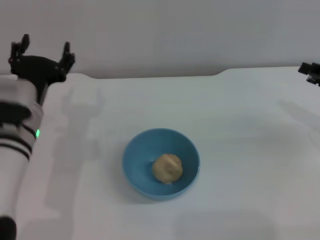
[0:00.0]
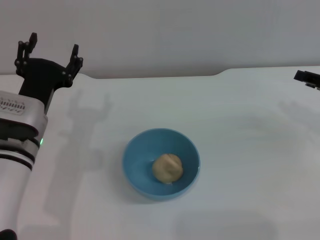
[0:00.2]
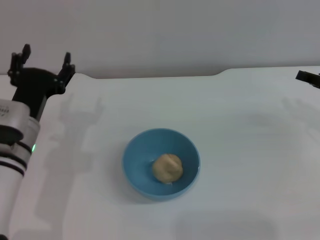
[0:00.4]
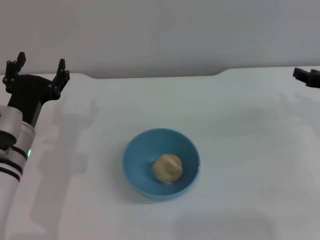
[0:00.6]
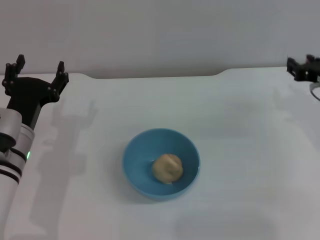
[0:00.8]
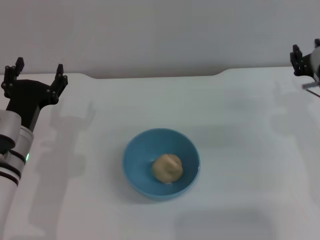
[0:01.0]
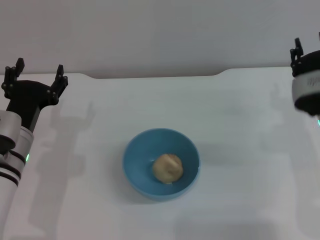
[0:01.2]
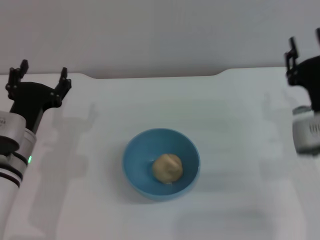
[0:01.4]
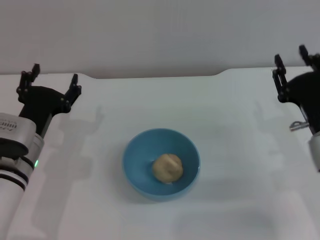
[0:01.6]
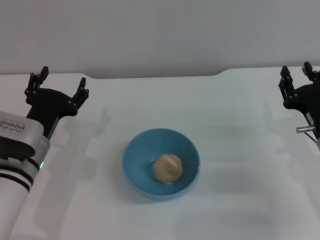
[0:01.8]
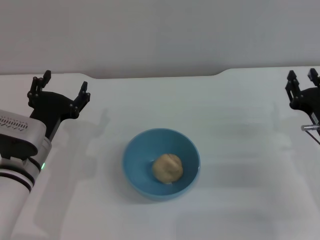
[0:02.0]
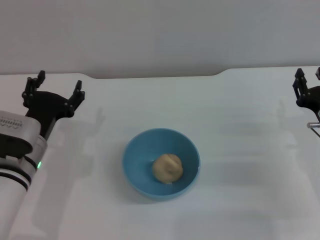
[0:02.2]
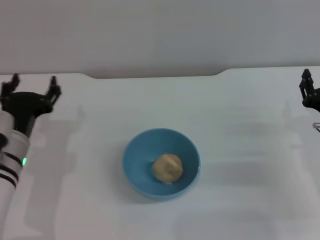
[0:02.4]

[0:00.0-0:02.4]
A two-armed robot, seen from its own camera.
Task of the whole recording: put the egg yolk pastry into the blue bowl and pour it out repeatedly.
0:00.0 to 0:01.2: The right gripper is displaced to the left by approximately 10 cm.
0:01.2 to 0:02.4: The right gripper moves to the right, roughly 5 cm.

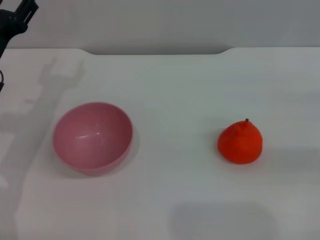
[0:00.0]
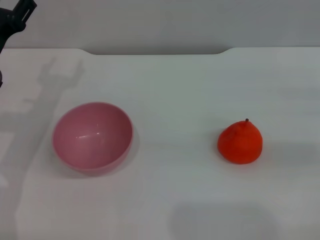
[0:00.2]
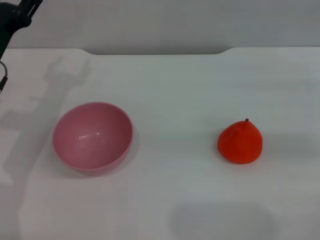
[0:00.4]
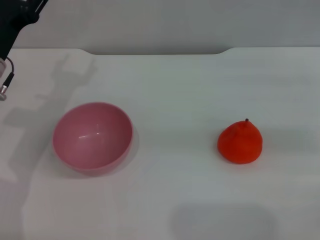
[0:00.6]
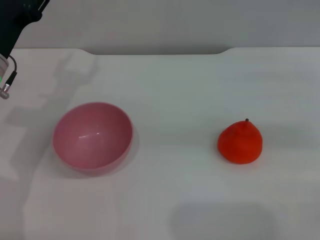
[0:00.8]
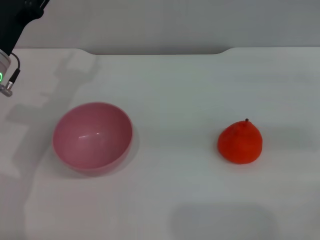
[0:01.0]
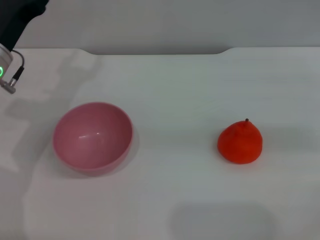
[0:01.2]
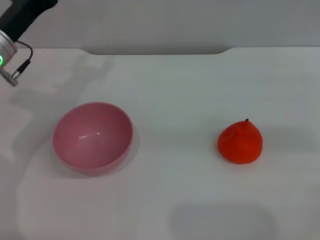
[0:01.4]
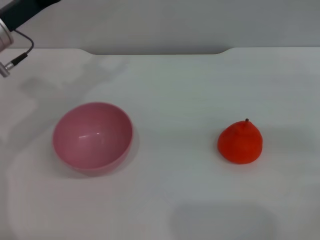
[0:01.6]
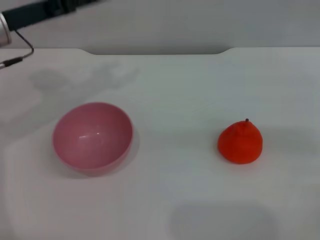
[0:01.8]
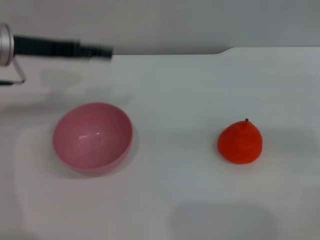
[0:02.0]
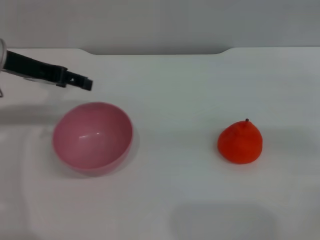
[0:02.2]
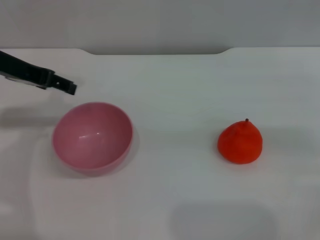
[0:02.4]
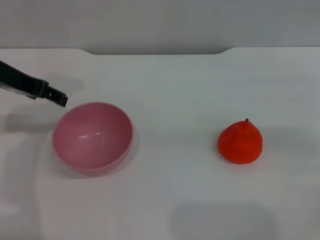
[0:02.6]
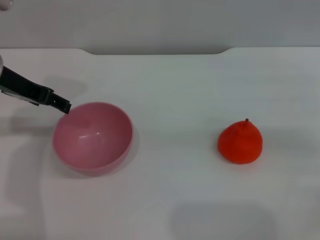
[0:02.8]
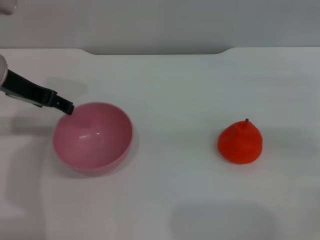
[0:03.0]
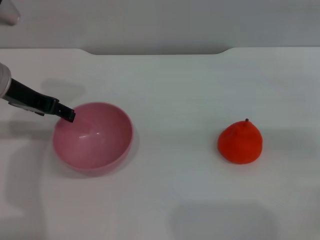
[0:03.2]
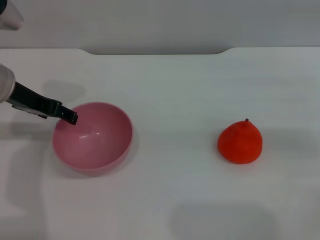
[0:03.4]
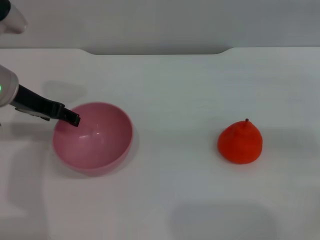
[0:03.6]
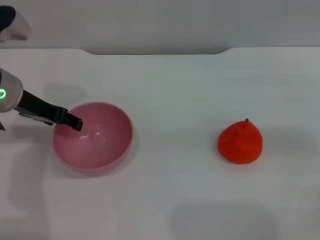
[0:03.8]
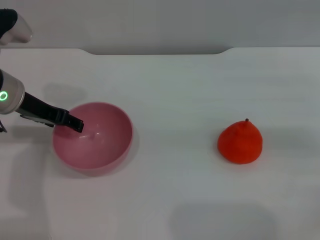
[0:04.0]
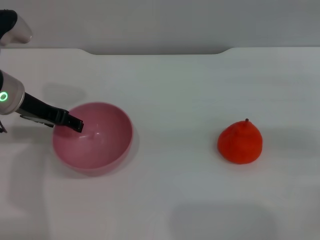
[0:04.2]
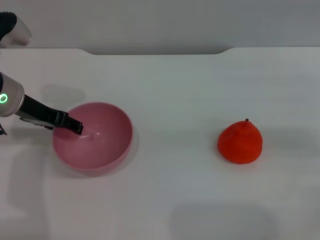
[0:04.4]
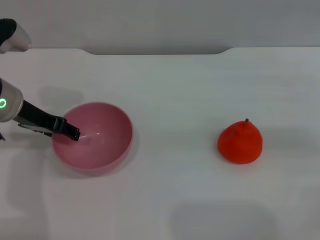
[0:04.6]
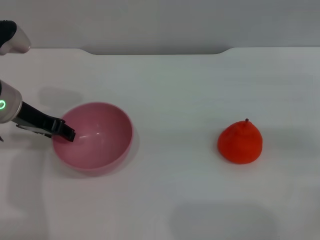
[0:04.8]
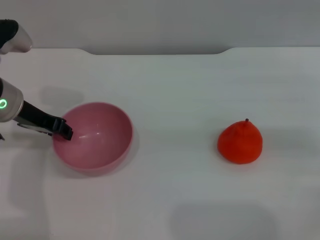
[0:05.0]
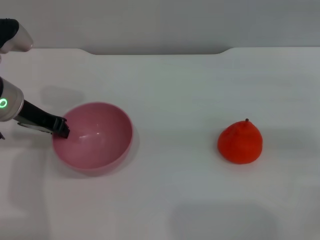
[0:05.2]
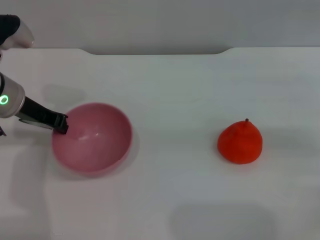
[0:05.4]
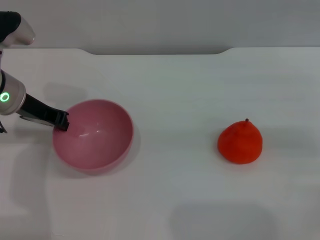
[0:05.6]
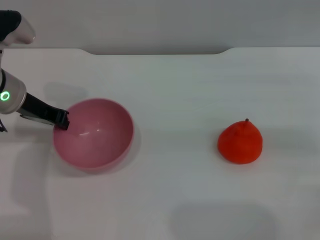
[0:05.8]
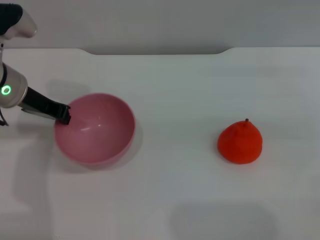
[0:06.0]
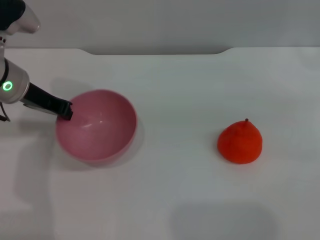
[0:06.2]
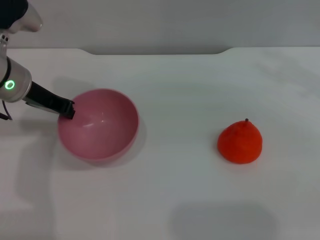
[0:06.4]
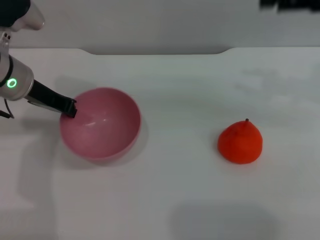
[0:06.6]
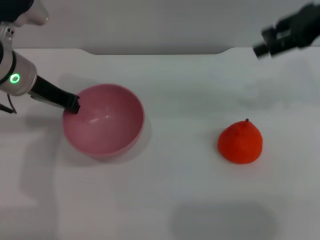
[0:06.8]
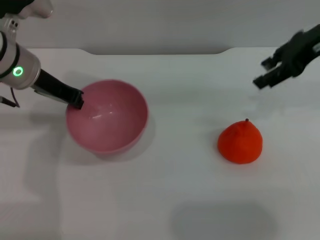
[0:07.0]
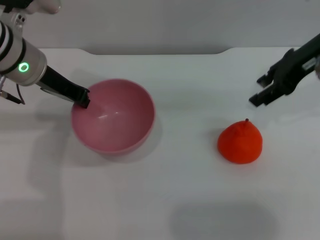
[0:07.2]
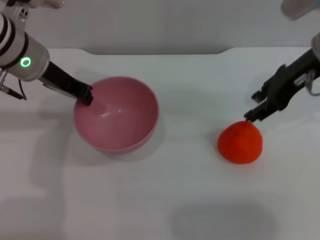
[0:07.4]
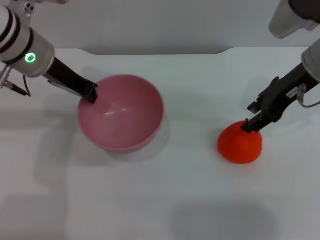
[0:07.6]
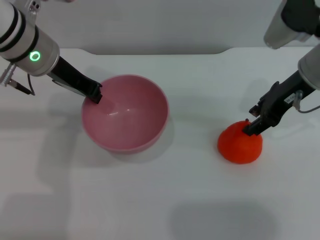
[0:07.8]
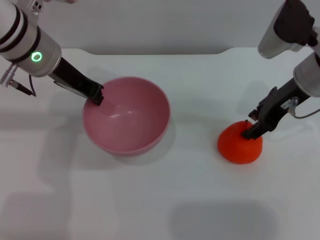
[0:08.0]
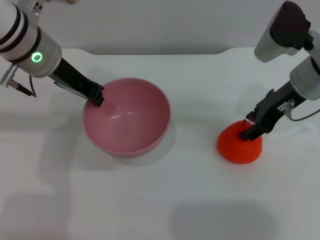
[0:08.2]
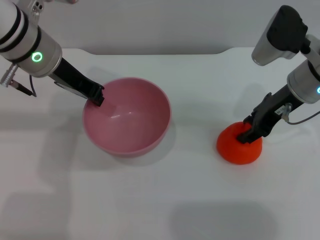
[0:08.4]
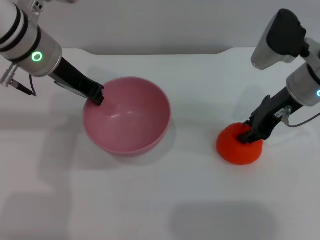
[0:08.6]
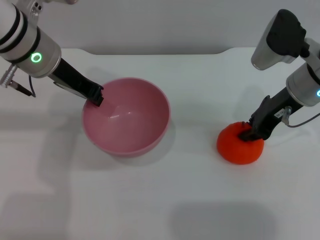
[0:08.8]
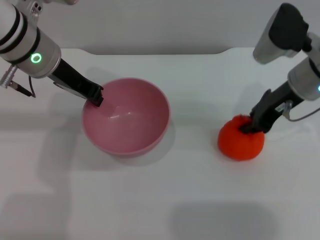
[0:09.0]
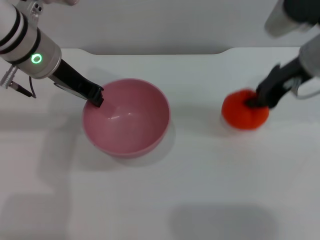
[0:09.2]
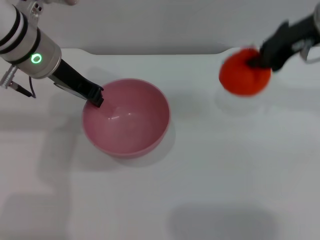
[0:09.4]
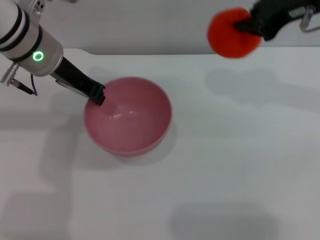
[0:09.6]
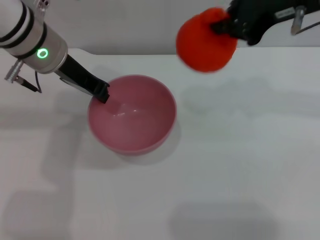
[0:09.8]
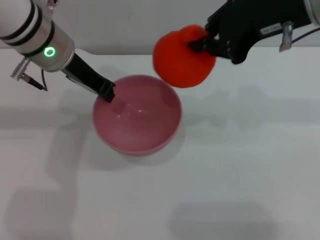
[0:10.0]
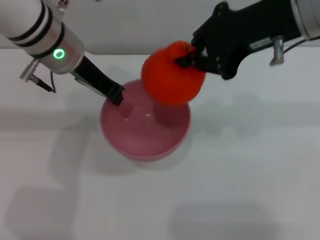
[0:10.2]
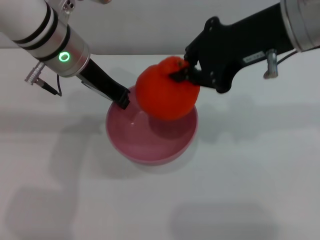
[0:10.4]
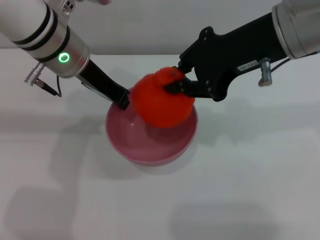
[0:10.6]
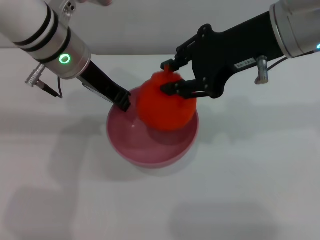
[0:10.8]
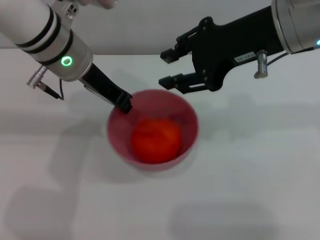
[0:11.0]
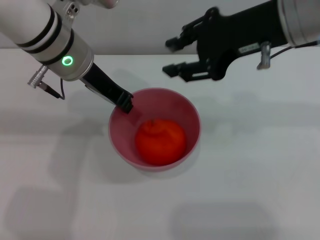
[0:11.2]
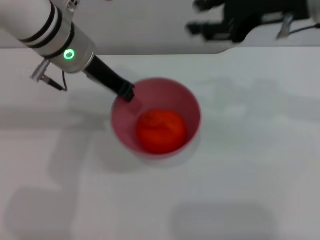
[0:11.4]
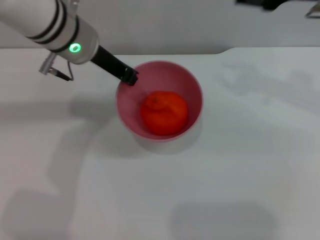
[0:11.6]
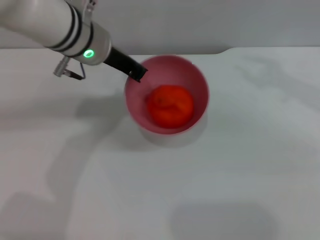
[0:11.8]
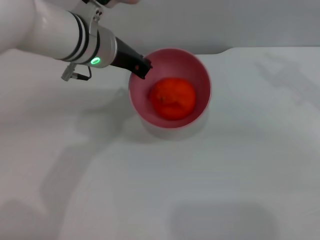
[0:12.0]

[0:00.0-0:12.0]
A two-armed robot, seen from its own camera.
Task of the whole recording: put the orange into the pink bowl and pour it out repeatedly.
Step, 0:00.0 to 0:07.4: Pick up the bowl with the left gripper.
Step, 0:07.6 to 0:09.2: Pick up the orange with the right gripper.
Step, 0:09.4 to 0:11.0: Place the orange into the bowl.
0:00.0 to 0:01.6: The left gripper travels upward by approximately 5 cm.
0:03.0 to 0:04.4: The grippers stay close to where they were, moving slightly.
0:04.4 to 0:06.0: The left gripper closes.
0:06.0 to 0:07.6: The right gripper is displaced to the left by about 15 cm; the left gripper changes place by some 5 cm.
0:07.6 to 0:09.0: The right gripper closes.
0:09.0 to 0:10.4: The right gripper heads upward, backward and to the left, covering about 15 cm.
0:10.4 to 0:12.0: The right gripper is displaced to the right and downward by some 15 cm, and opens.

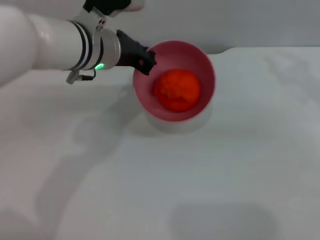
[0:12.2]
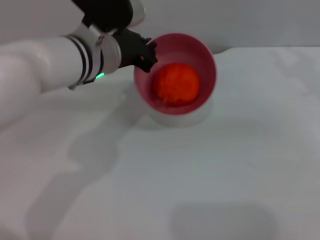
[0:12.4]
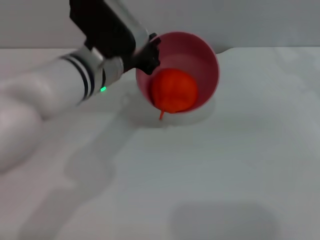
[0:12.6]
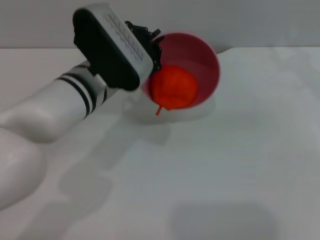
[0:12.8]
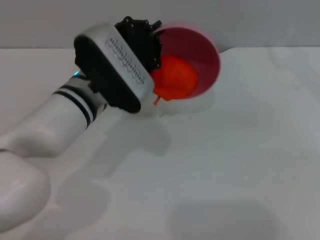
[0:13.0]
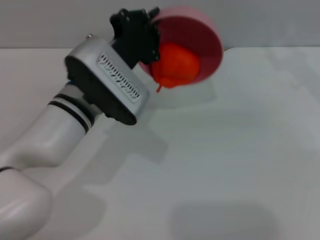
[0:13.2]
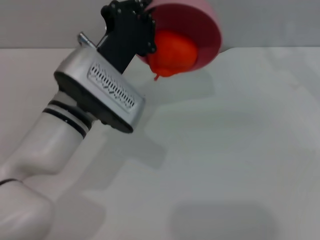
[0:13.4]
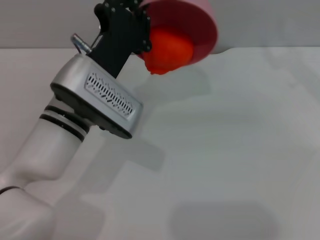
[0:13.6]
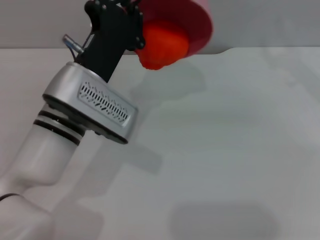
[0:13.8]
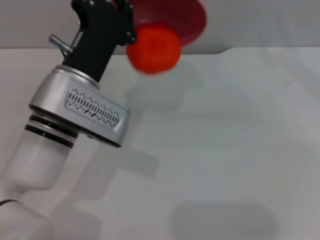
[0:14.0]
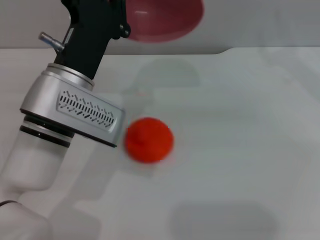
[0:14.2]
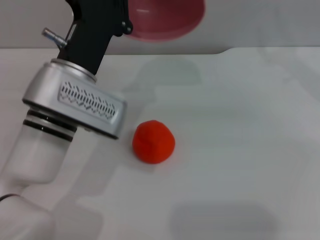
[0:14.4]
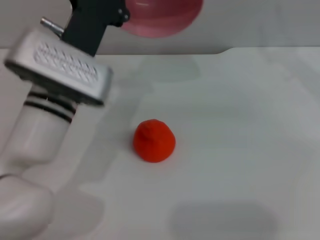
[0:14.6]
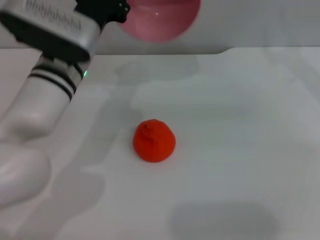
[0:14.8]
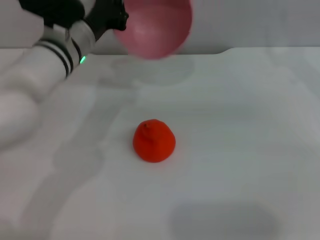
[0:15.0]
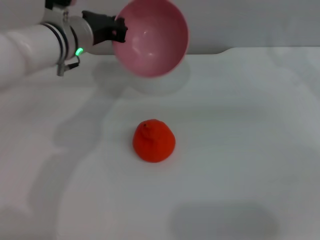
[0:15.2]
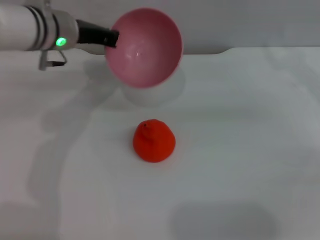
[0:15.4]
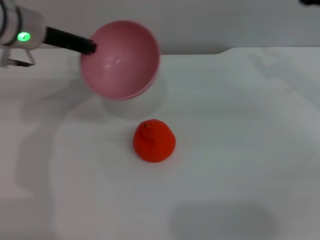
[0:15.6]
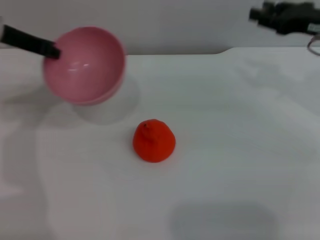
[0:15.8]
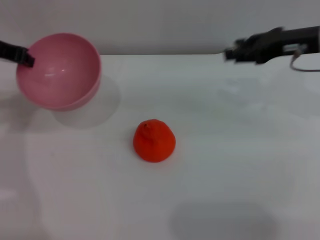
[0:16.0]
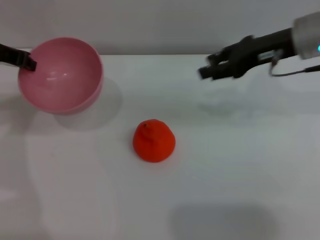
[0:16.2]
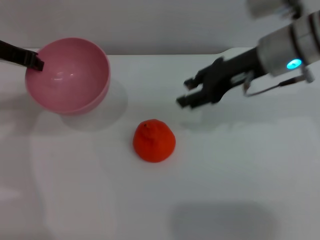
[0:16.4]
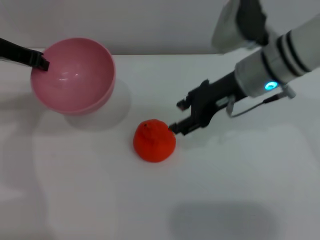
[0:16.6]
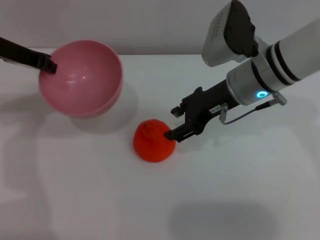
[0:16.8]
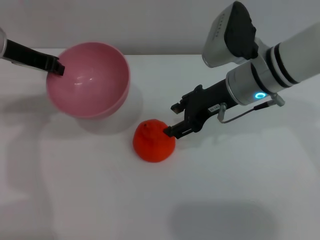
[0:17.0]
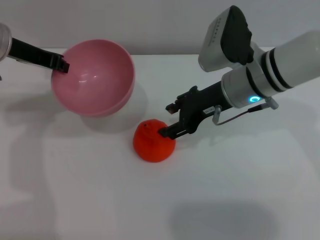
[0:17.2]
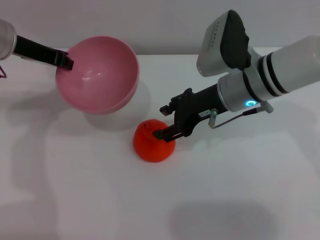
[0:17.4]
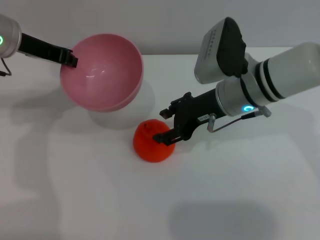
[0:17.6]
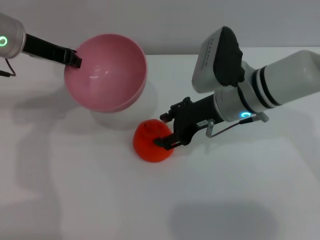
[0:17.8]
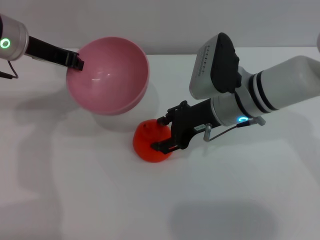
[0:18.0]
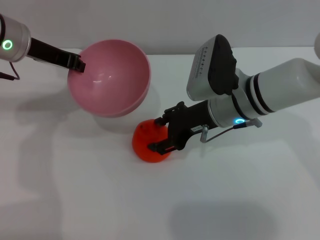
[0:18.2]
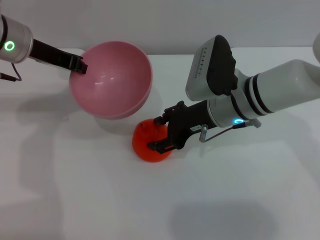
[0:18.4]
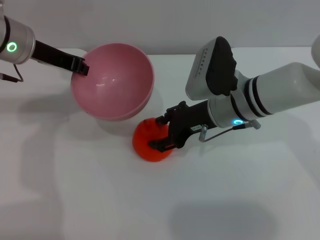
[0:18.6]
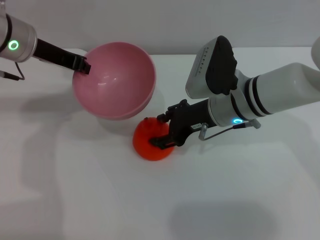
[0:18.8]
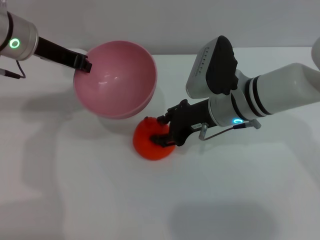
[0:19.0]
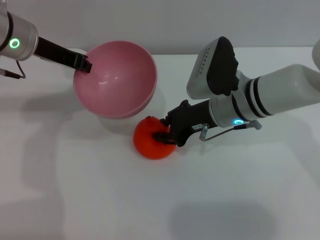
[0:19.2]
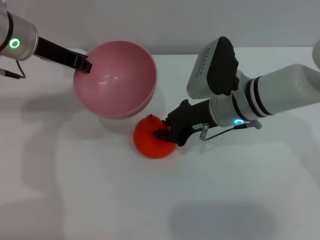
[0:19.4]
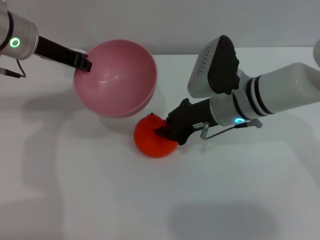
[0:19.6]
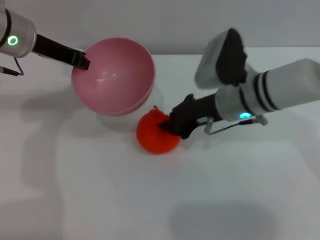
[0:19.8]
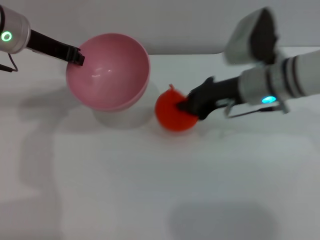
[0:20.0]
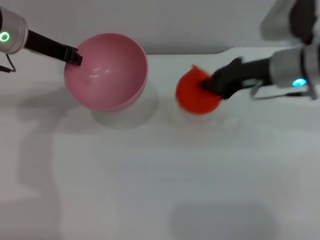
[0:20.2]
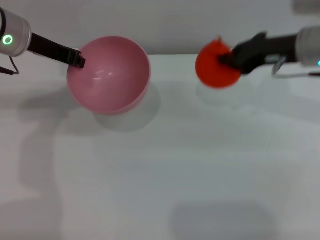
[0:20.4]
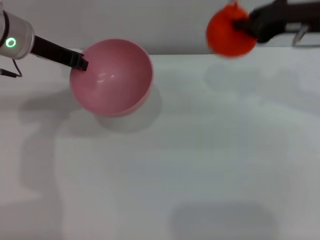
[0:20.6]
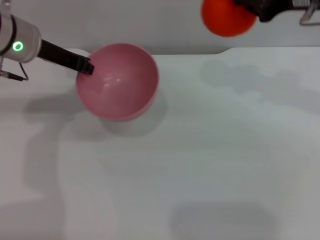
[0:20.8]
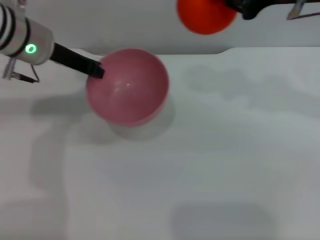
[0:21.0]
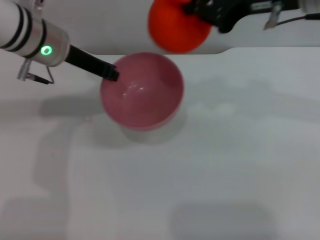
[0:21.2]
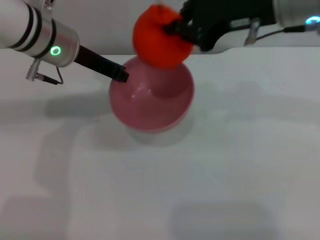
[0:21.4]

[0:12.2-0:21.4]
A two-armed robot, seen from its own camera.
Task of the whole recording: put the orange into the pink bowl and pour it out repeatedly.
Step, 0:12.2 to 0:14.2: Pour the orange out of the bowl.
Step, 0:14.6 to 0:20.2: Pick up the orange with the right gripper.
0:12.2 to 0:13.8: The left gripper goes some 10 cm backward and downward.
0:13.8 to 0:15.2: The left gripper is displaced forward by some 10 cm.
0:15.2 to 0:16.8: The right gripper goes about 20 cm to the left, while the left gripper heads to the left and upward, covering about 15 cm.
0:16.8 to 0:18.4: The right gripper changes place by roughly 5 cm.
0:18.4 to 0:19.8: The right gripper closes.
0:19.8 to 0:21.4: The left gripper is displaced to the right by about 5 cm. Meanwhile the right gripper is displaced upward by approximately 15 cm.
